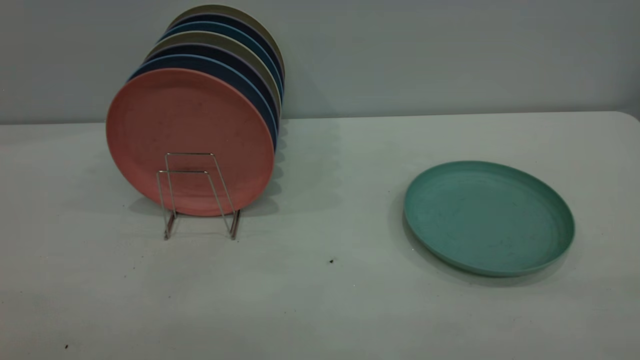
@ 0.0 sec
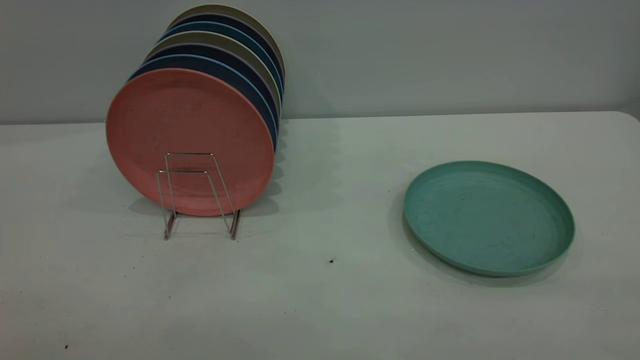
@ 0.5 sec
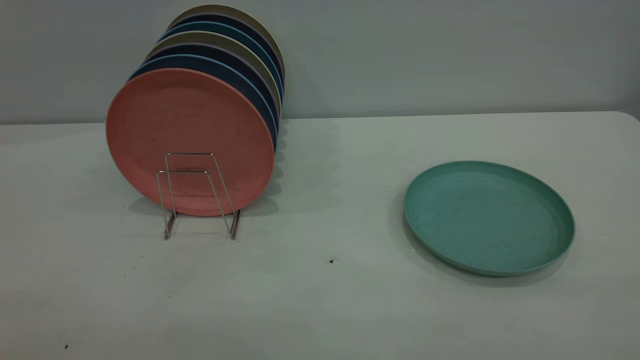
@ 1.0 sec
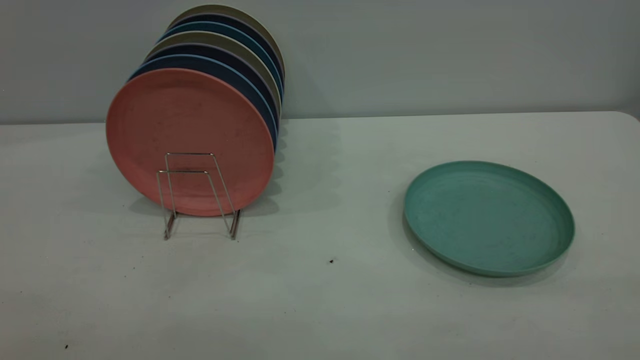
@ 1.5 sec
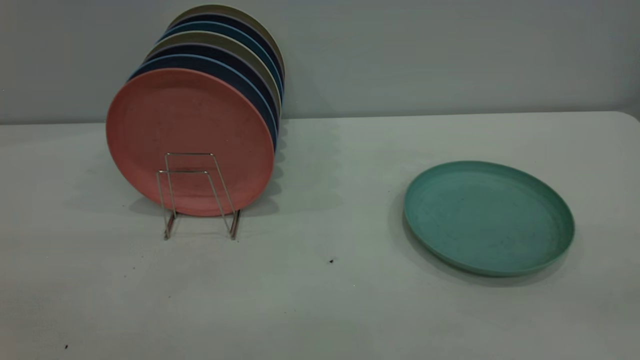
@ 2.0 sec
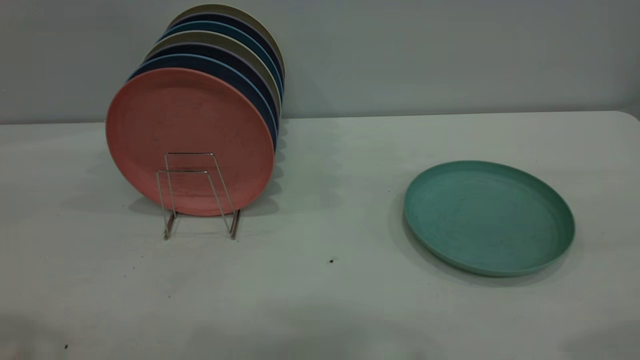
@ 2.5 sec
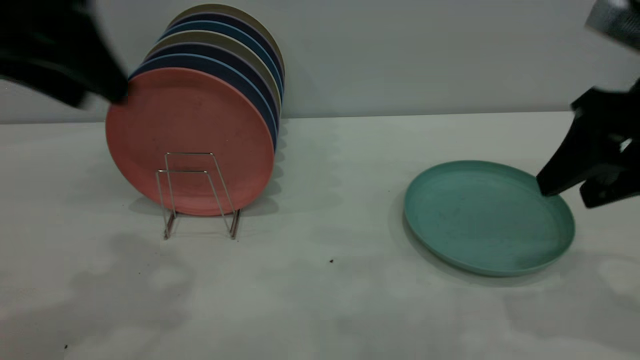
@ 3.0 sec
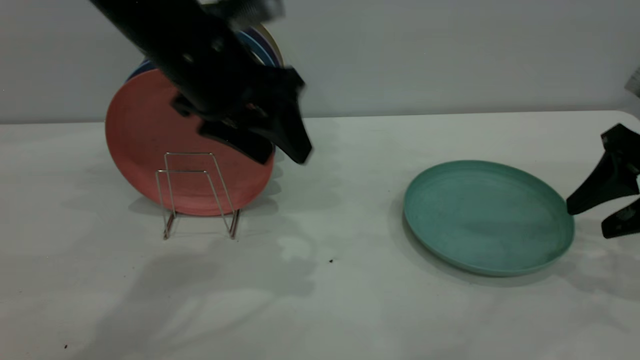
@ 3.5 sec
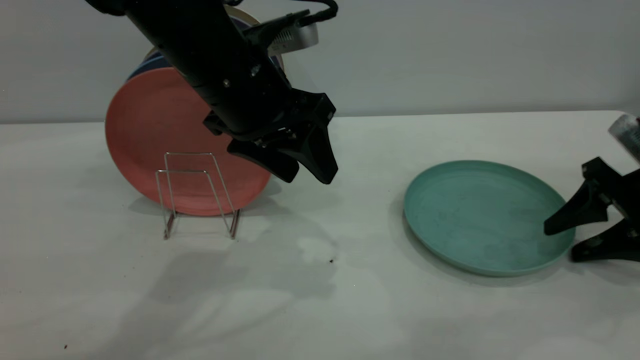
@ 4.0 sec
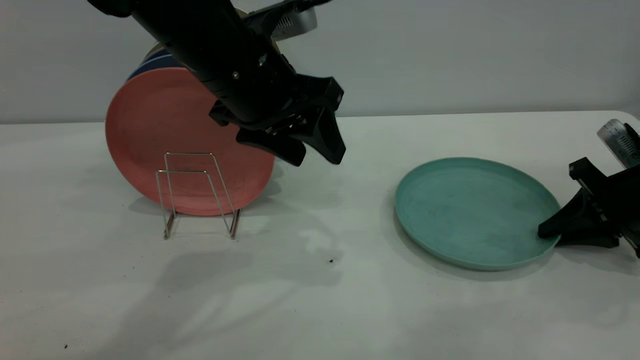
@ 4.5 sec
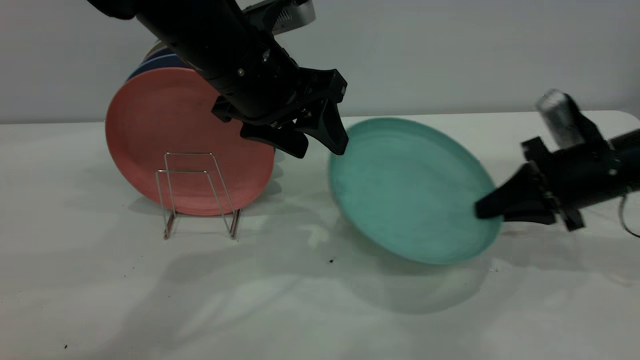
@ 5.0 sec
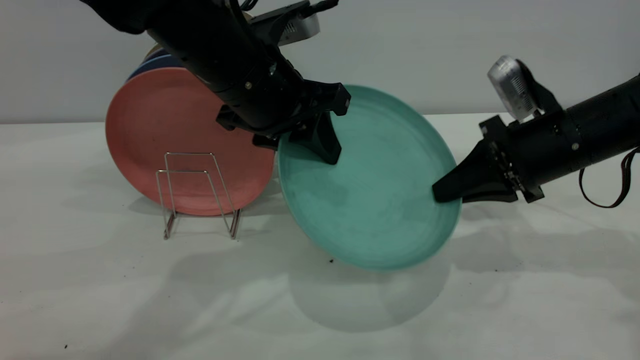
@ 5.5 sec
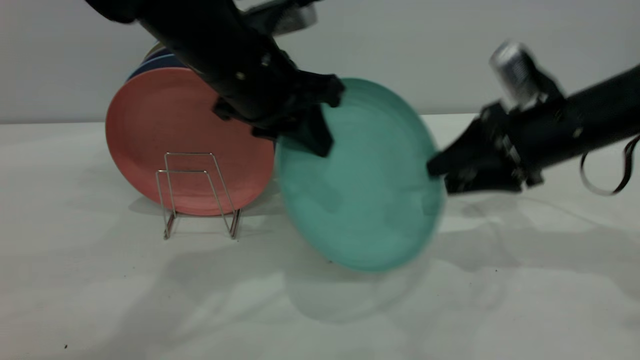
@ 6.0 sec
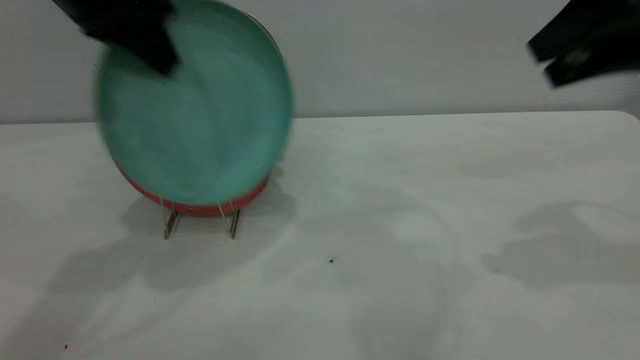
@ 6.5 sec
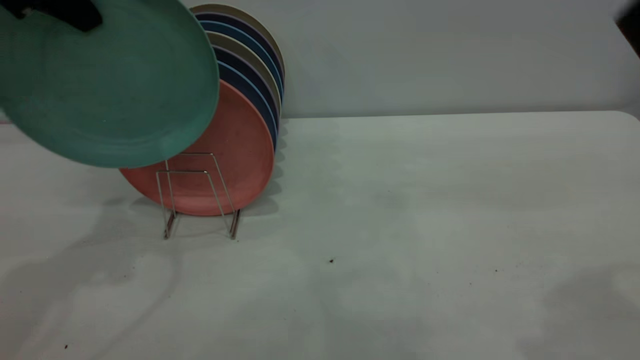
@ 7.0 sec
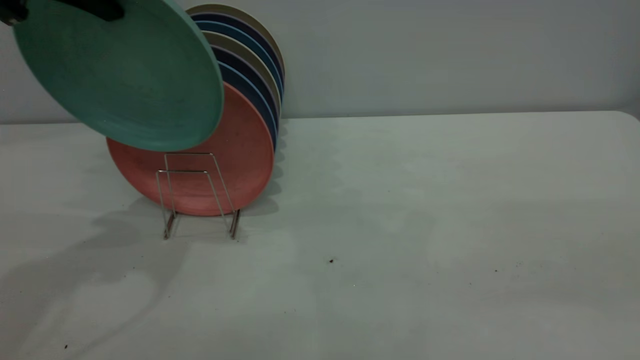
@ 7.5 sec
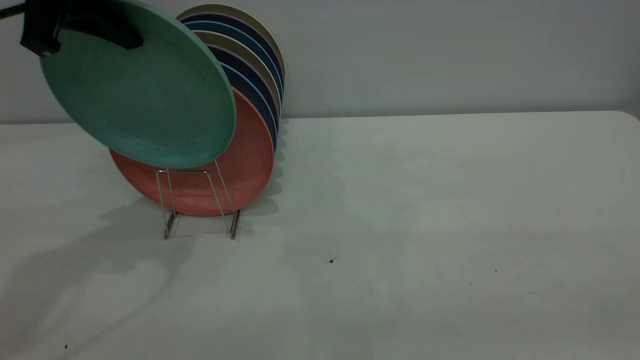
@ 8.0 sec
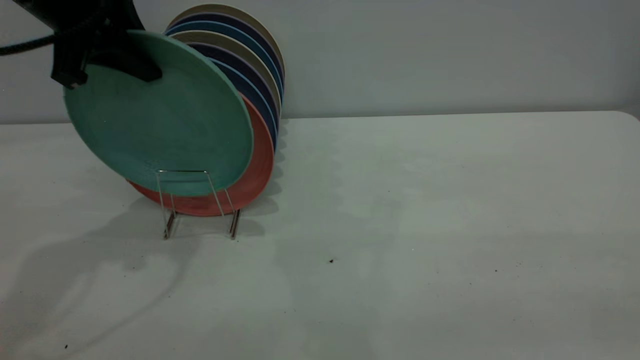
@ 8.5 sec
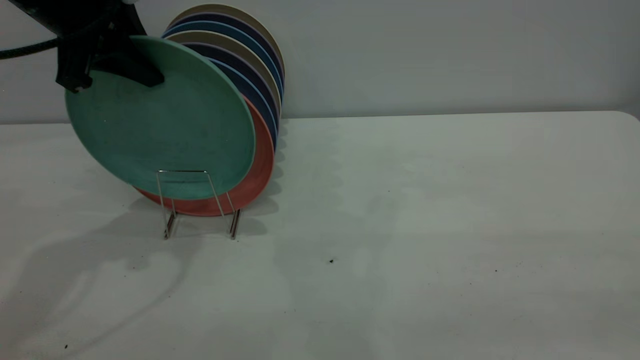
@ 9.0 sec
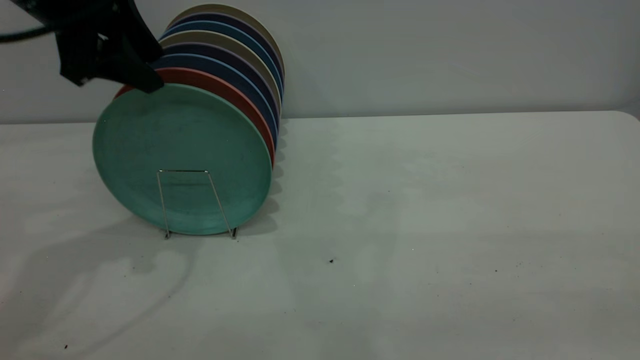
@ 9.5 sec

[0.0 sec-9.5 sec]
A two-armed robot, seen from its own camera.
Task of the whole recording: the right gripper grasp the green plate, the right gripper pass the green plate to the left gripper, and the left gripper place the green plate on the plate rack.
Step, 0.0 sec to 4.5 sec: Pick up the plate with the right gripper.
Step, 5.0 sec to 6.0 sec: Pass the plate from the right gripper to the left gripper.
2.0 sec to 4.0 sec: The left gripper heads forward, to the right and downward, covering approximately 40 cm. The right gripper shifts about 40 cm forward and downward.
4.0 sec to 5.5 sec: The right gripper goes roughly 10 cm to the left, and closes. Meanwhile the left gripper closes its fingers.
5.5 sec to 7.5 sec: The left gripper shifts approximately 20 cm to the left and upward; the right gripper heads backward and upward, covering approximately 35 cm, and opens up.
7.5 sec to 9.5 sec: The left gripper shifts roughly 5 cm downward, and opens; the right gripper goes some 5 cm backward.
